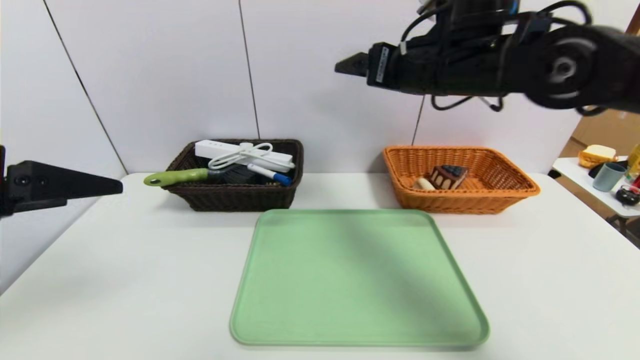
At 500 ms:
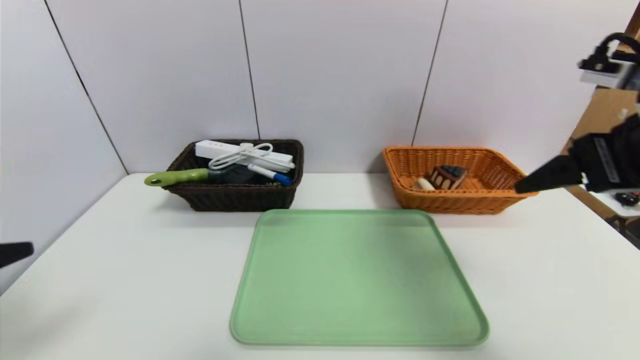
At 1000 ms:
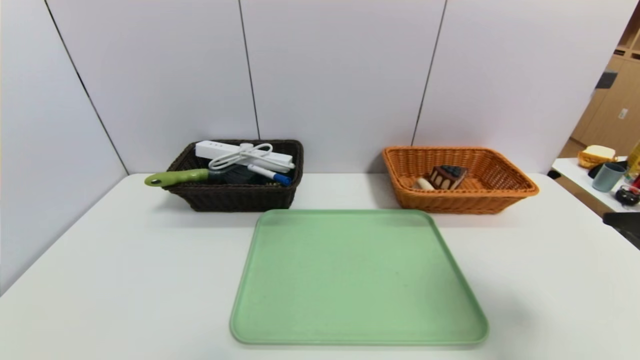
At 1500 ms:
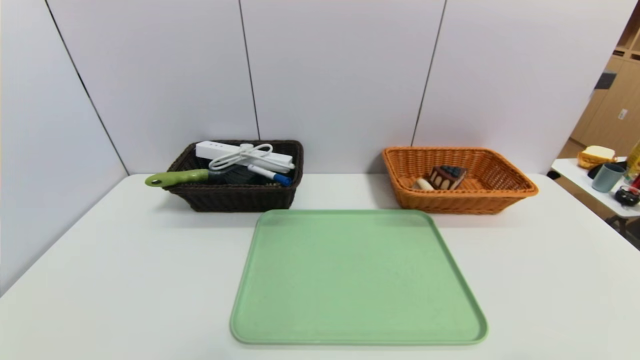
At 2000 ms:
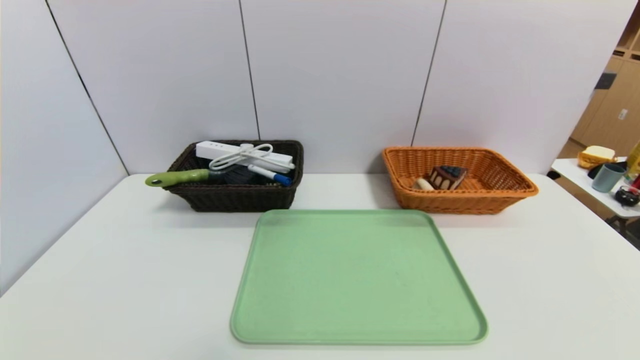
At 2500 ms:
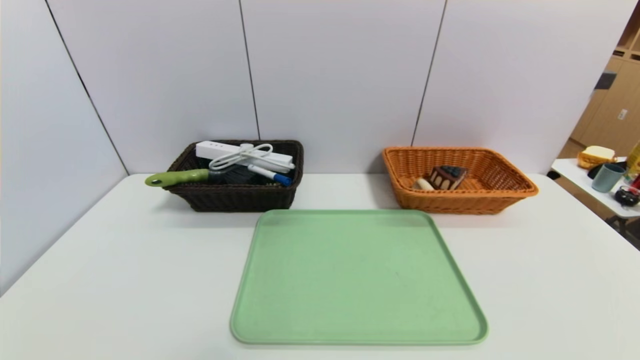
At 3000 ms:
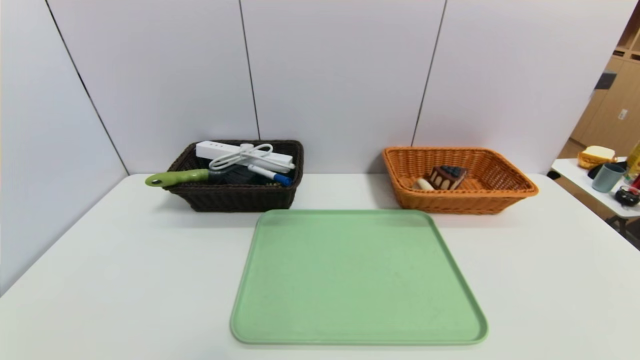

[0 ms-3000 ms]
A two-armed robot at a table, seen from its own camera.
Task of the whole recording: place the food in the right basket with the right gripper, and place the non food items in the left basket with the left gripper.
0 ms to 1500 ms: The left gripper travels downward and backward by about 25 cm; the right gripper shifts roughly 40 cm backward, to the right and downward.
